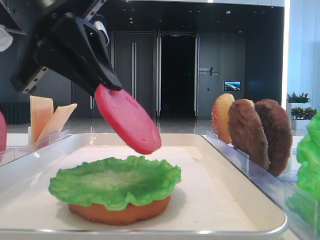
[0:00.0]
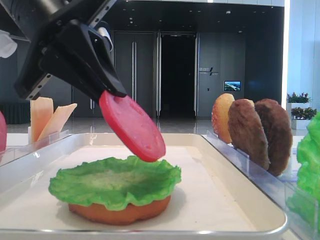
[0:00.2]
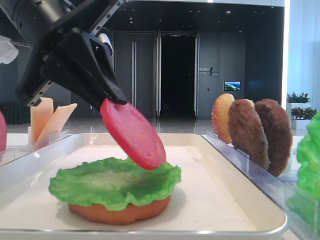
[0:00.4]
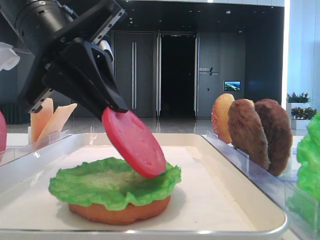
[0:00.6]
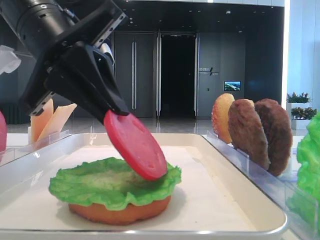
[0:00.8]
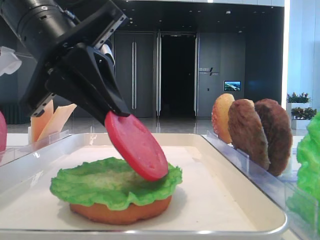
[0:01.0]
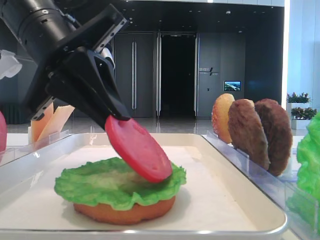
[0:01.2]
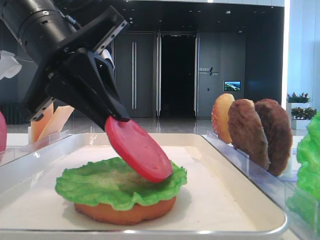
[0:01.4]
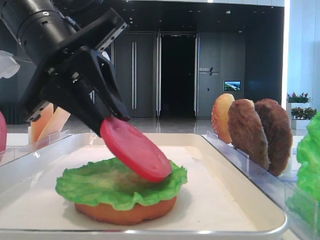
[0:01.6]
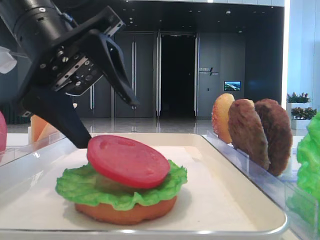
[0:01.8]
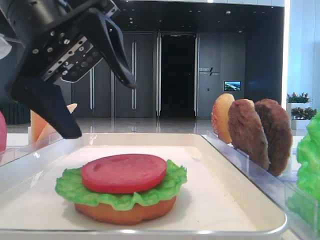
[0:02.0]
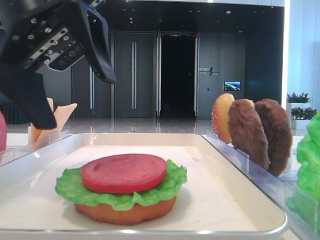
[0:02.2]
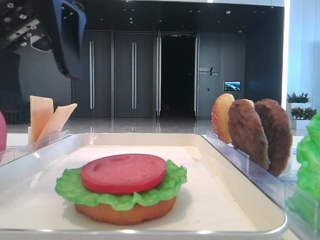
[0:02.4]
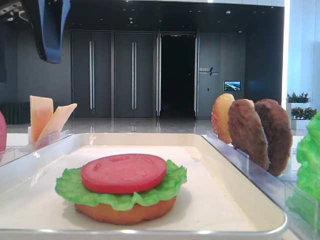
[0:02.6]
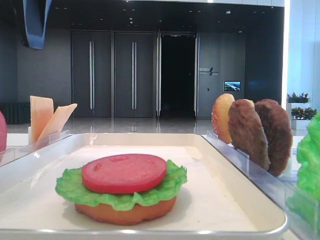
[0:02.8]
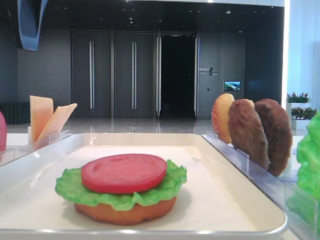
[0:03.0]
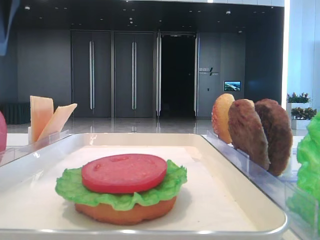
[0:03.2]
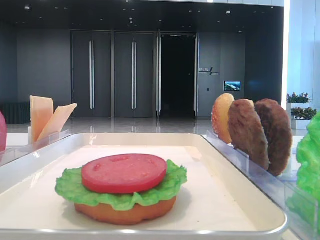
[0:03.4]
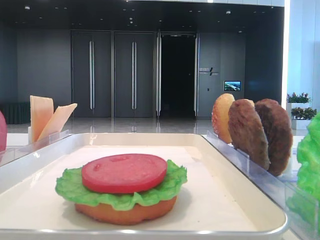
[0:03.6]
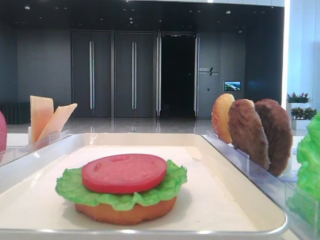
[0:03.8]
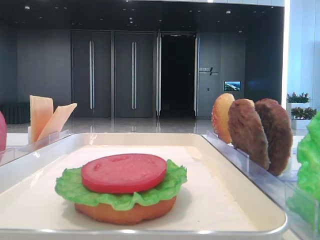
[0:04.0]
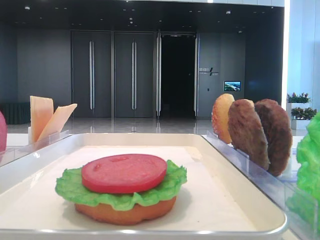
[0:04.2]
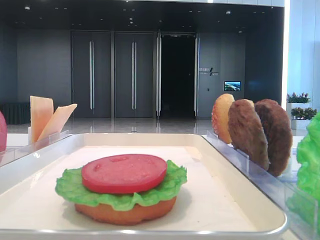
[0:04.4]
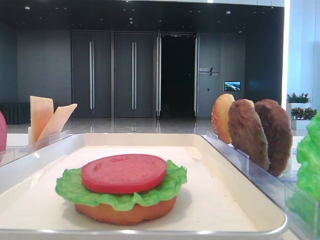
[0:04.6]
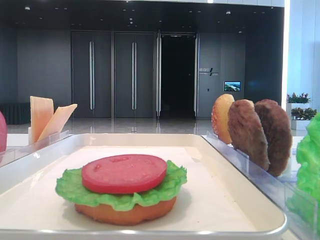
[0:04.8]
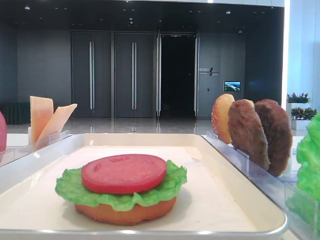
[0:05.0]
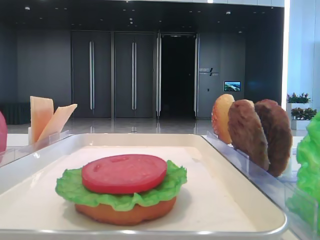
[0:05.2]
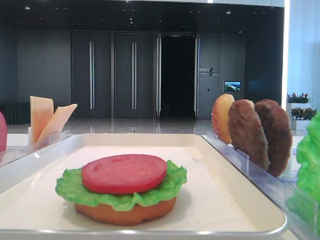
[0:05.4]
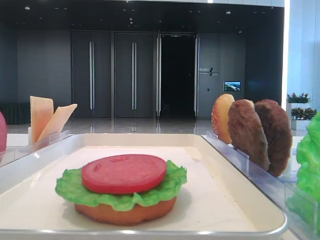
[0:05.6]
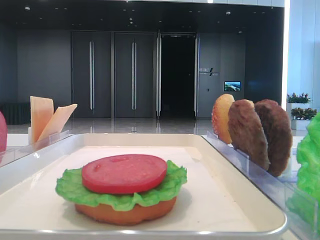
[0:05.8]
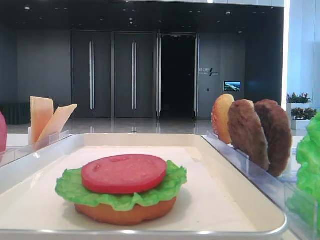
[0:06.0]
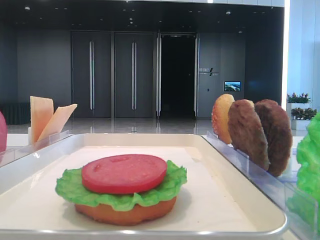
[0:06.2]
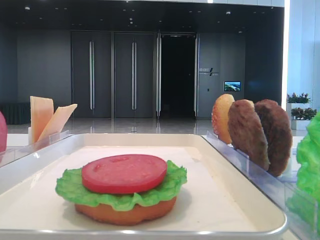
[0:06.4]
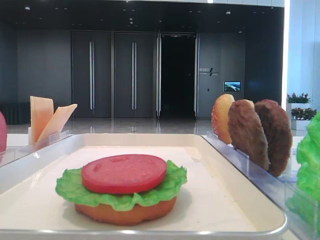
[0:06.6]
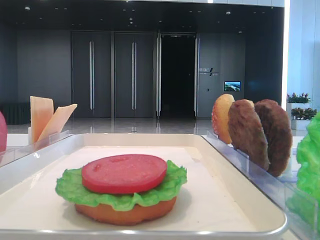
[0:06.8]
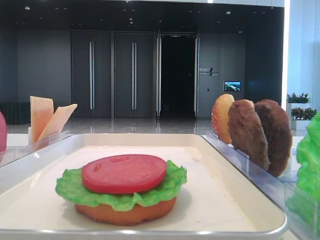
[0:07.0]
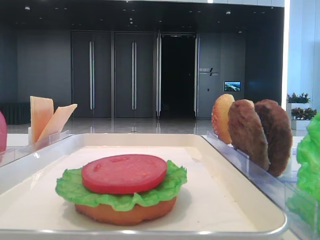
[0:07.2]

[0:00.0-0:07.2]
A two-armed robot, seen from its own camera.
0:00.0 to 0:01.4: The grippers move only a little.
0:01.4 to 0:02.8: The left gripper heads upward and to the left, covering some 15 cm, and opens its fingers.
0:02.8 to 0:04.4: The left gripper moves to the left, backward and upward, some 20 cm.
0:05.8 to 0:07.2: The two grippers keep their place.
